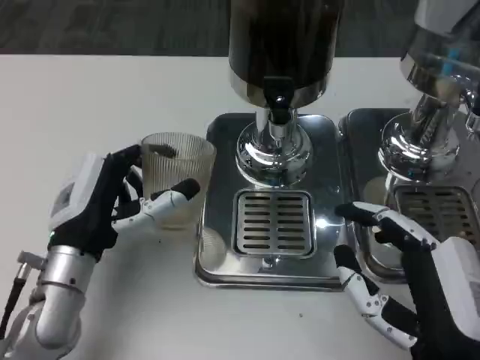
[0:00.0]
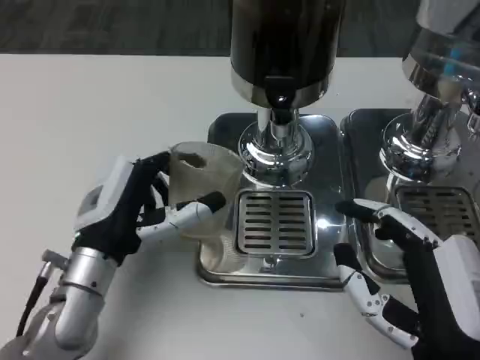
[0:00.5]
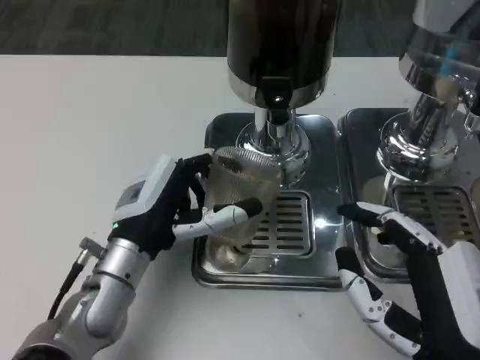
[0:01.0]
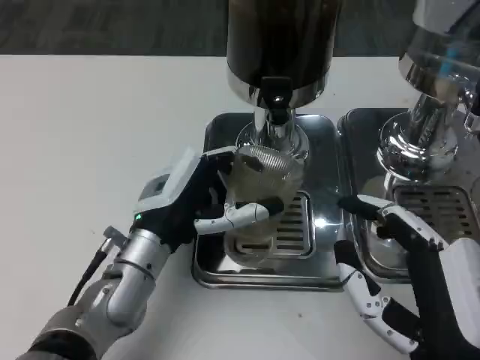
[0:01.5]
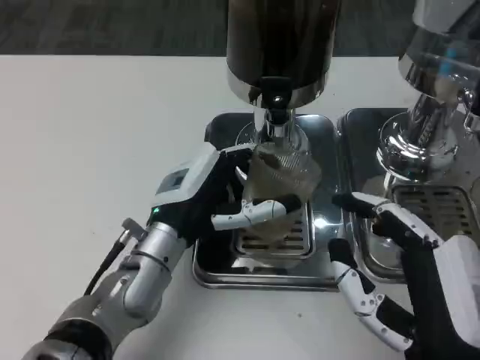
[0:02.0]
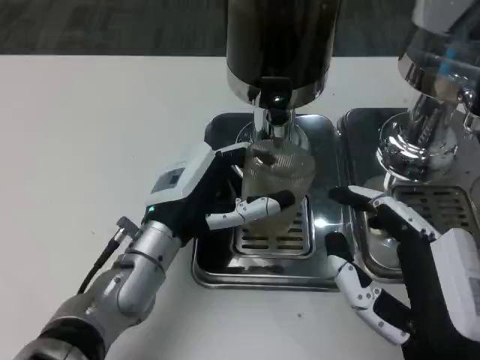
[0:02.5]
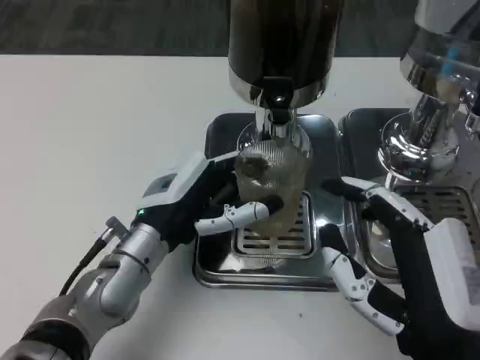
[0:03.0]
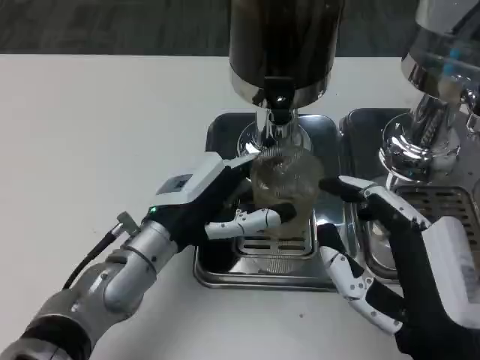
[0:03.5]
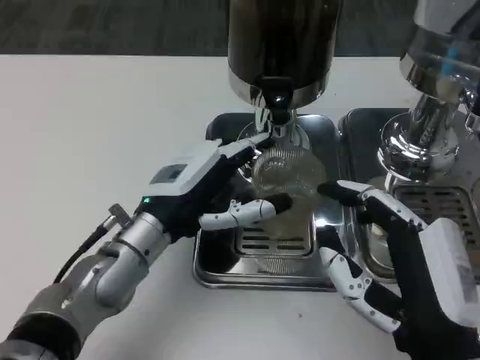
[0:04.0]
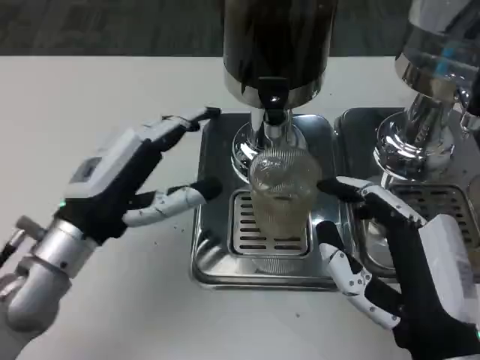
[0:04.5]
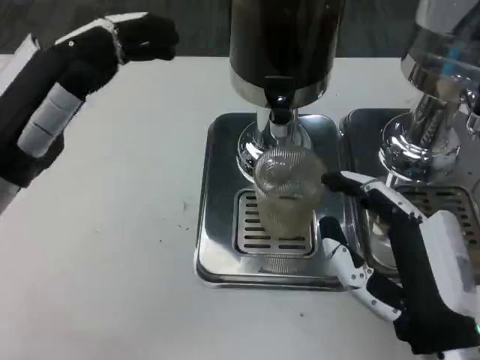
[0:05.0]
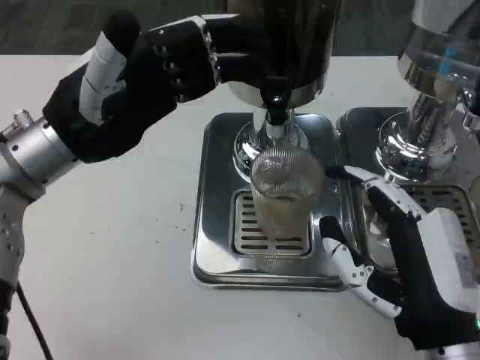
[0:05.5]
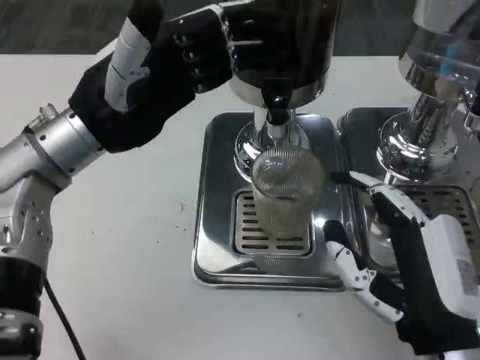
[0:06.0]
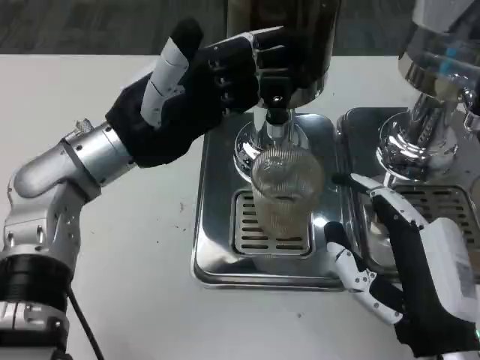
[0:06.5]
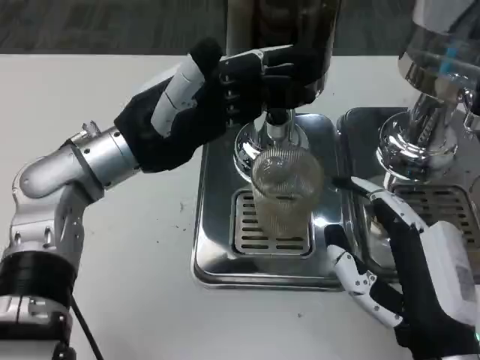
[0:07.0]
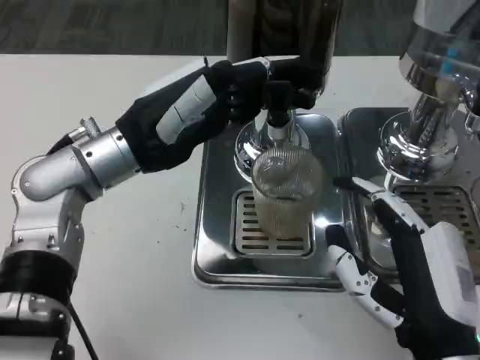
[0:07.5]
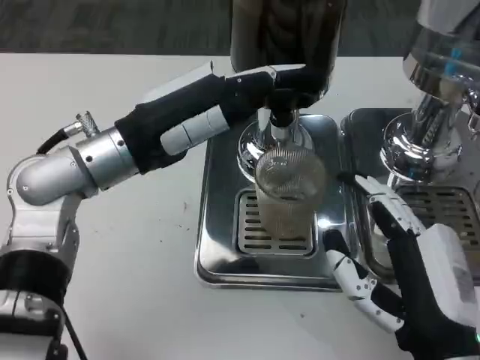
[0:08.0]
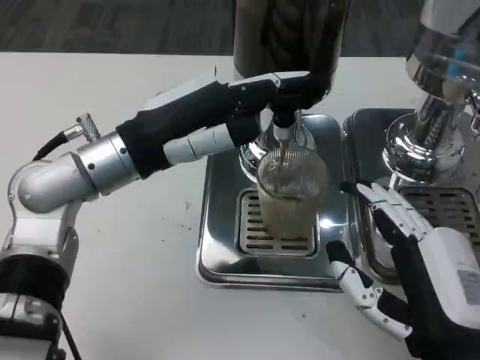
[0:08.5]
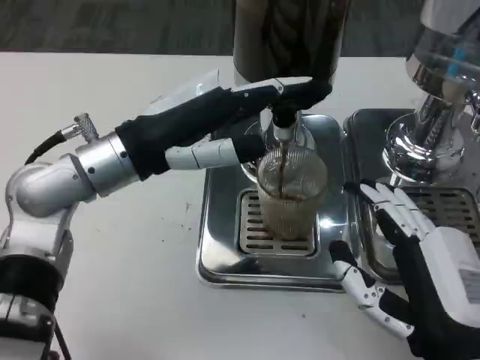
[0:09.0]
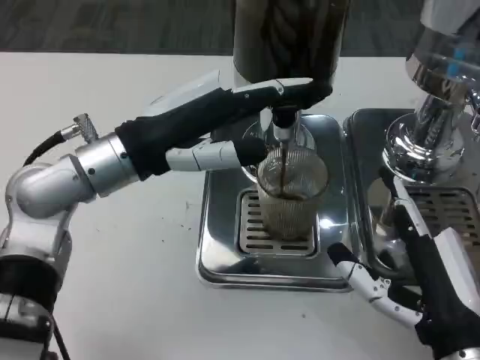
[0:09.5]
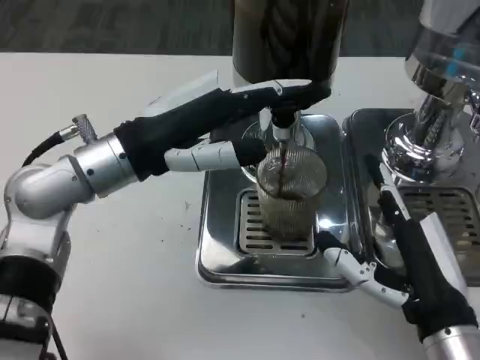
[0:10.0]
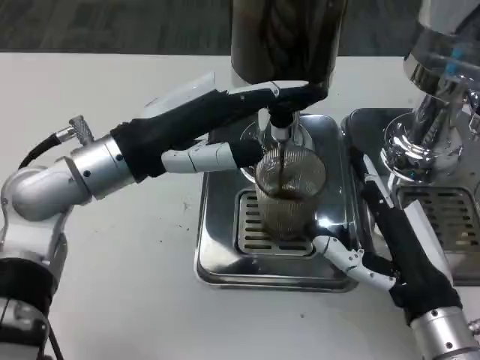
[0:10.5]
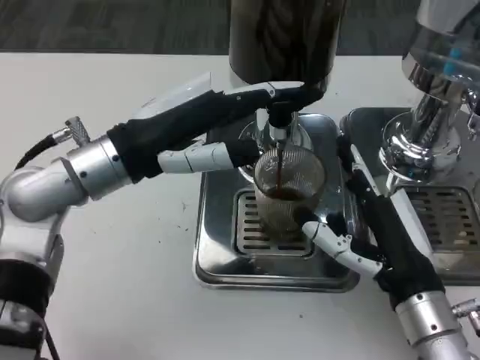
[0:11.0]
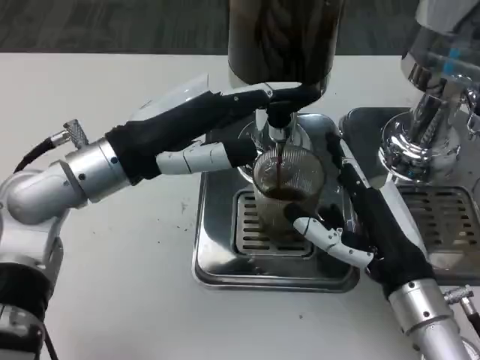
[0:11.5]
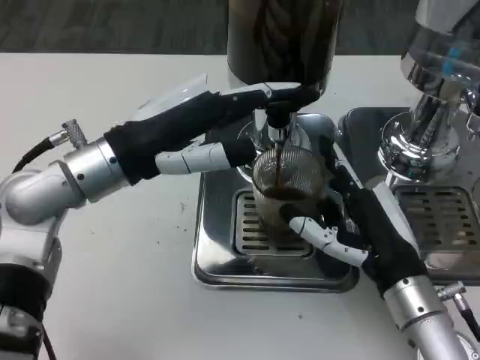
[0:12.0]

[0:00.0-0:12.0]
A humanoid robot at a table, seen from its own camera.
Task of the whole recording: Grasp the cup under the faucet to collect the drink, then remove the cup.
0:00.0 to 0:02.0: The left hand shifts about 10 cm to the right.
0:02.0 to 0:04.0: The hands make only small movements.
0:04.0 to 0:06.0: The left hand travels upward and to the left by some 10 cm.
0:10.0 to 0:12.0: The right hand travels forward by about 5 cm.

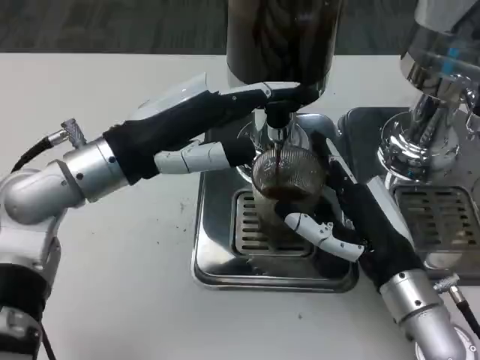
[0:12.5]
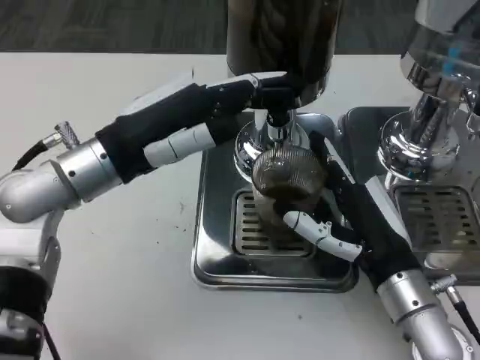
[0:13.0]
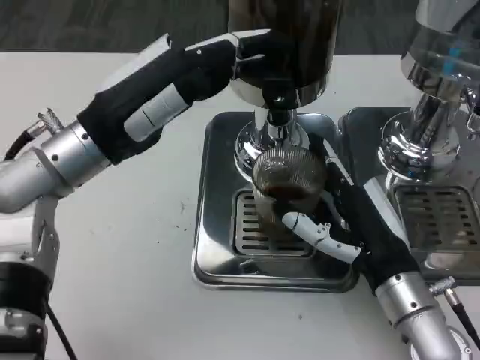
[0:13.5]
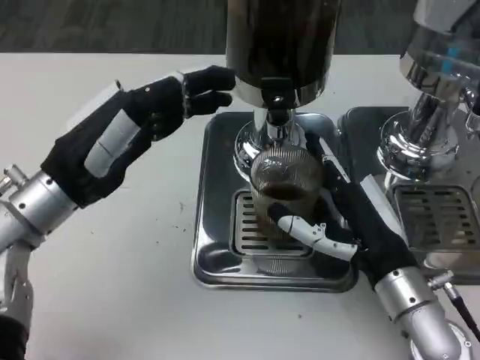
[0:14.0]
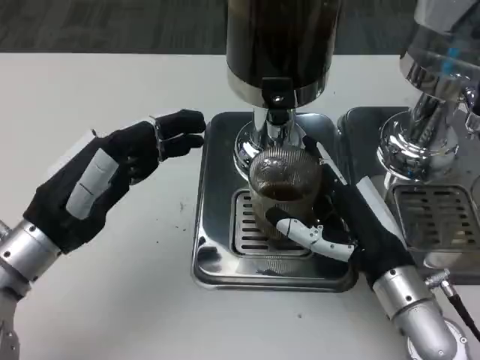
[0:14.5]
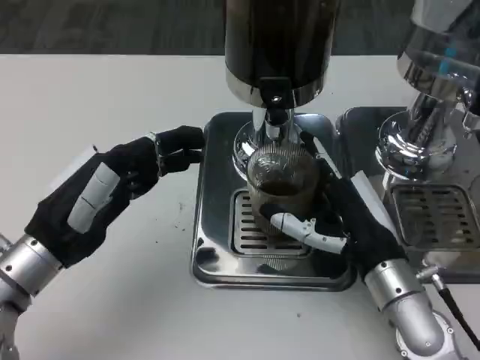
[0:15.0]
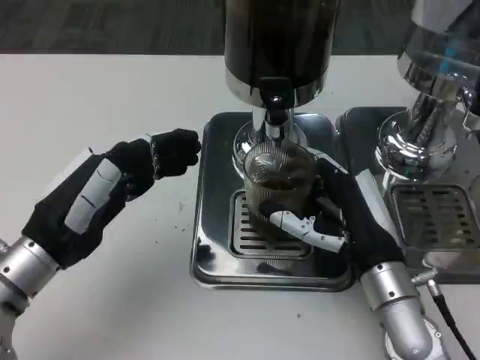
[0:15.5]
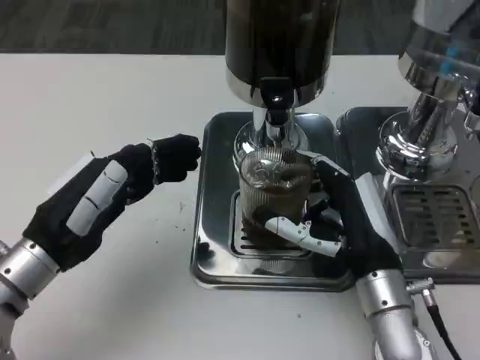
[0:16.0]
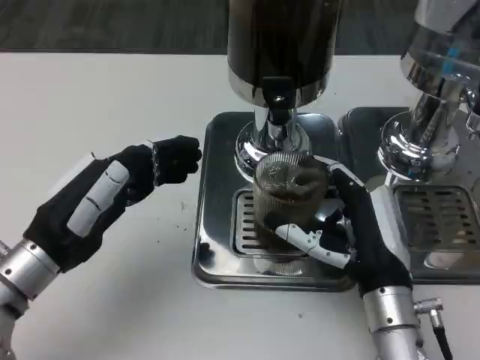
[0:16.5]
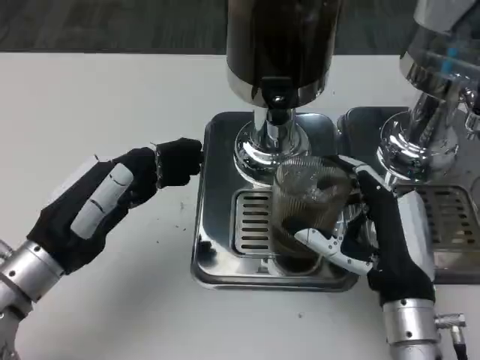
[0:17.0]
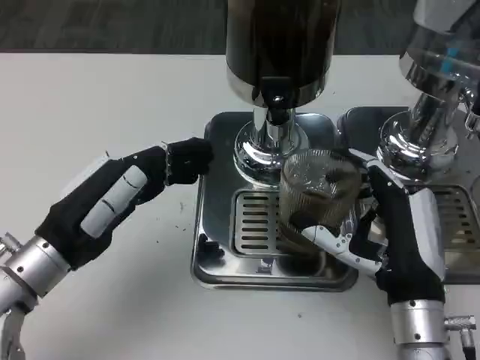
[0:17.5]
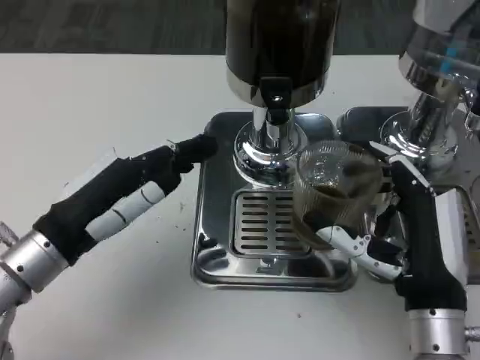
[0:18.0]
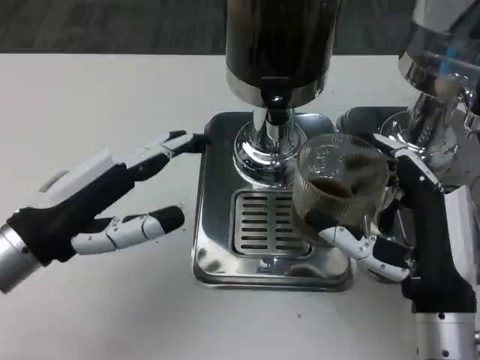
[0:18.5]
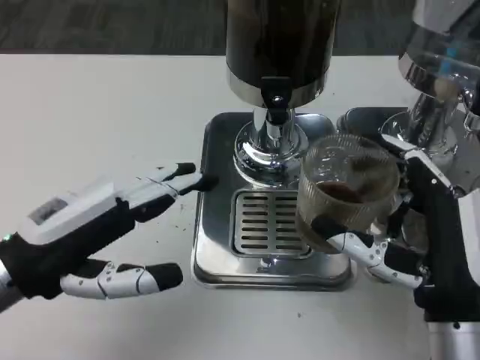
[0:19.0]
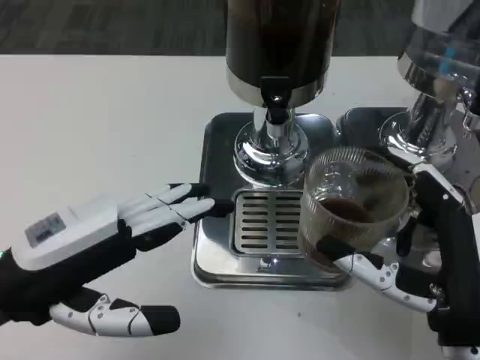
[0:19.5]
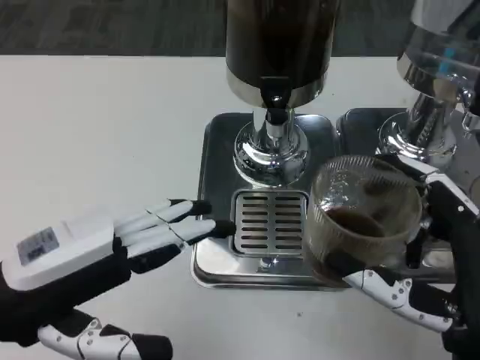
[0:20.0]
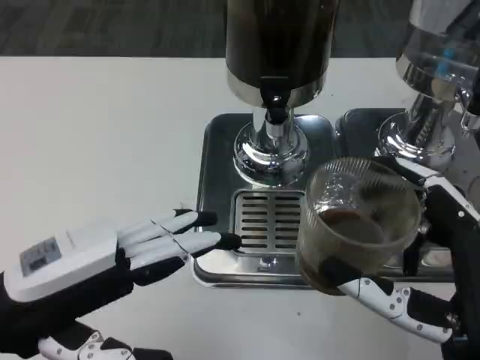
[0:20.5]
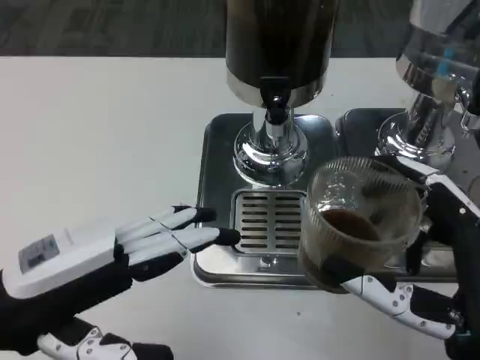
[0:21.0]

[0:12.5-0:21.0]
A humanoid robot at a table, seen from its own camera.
Task of the whole recording: Grasp the cup under the faucet to collect the drink, then remove the cup.
0:12.5 to 0:14.5: The left hand is displaced downward, backward and to the left by about 10 cm.
0:14.5 to 0:16.5: There are only small adjustments of the hands.
0:16.5 to 0:19.0: The right hand goes roughly 5 cm backward. Meanwhile the left hand ends up roughly 5 cm from where it was.
0:19.0 to 0:21.0: The right hand goes approximately 5 cm backward.

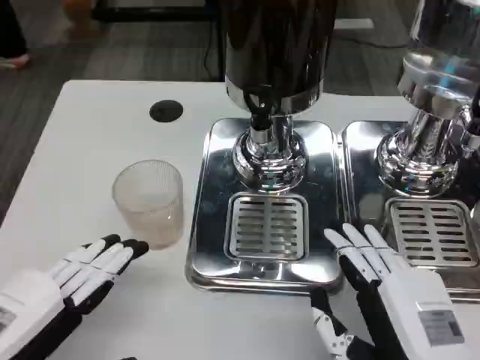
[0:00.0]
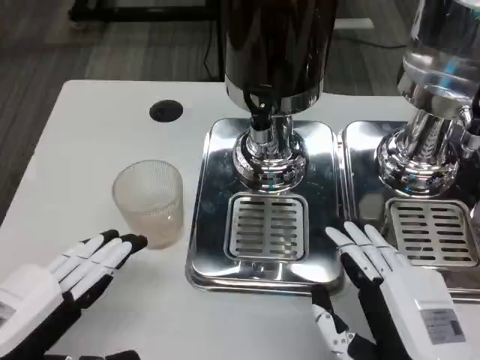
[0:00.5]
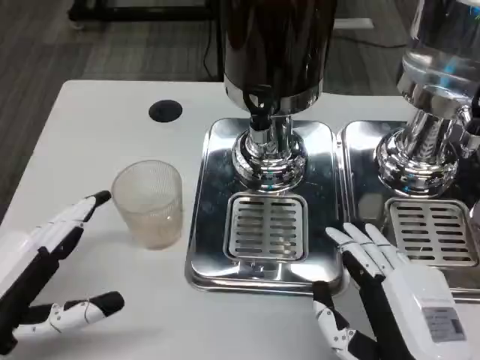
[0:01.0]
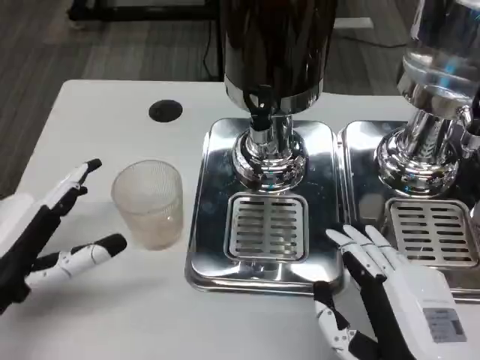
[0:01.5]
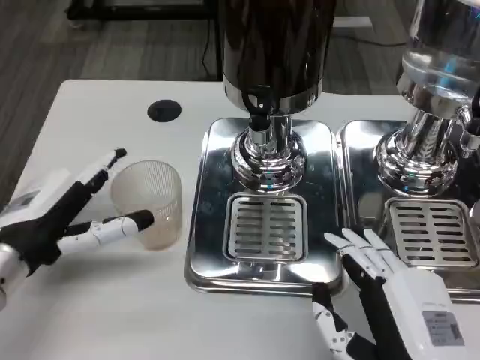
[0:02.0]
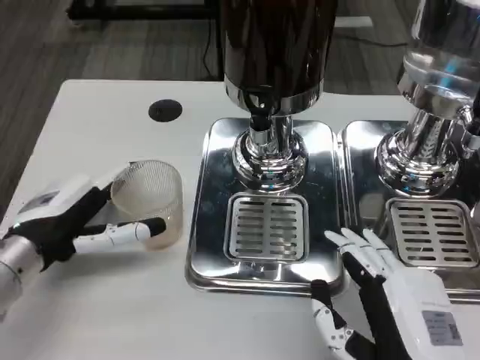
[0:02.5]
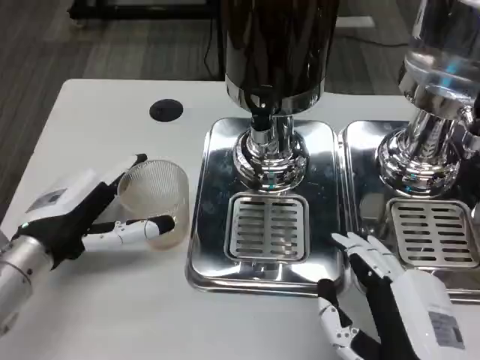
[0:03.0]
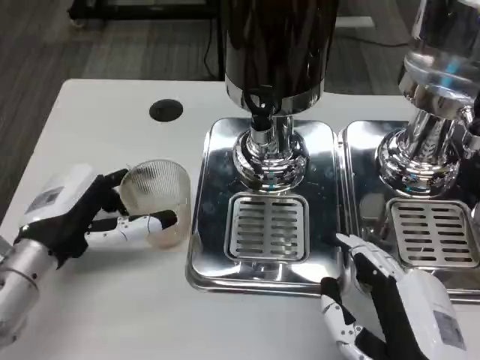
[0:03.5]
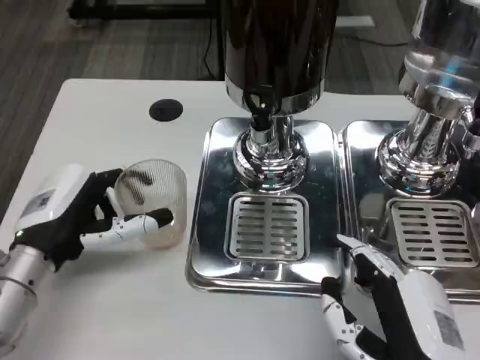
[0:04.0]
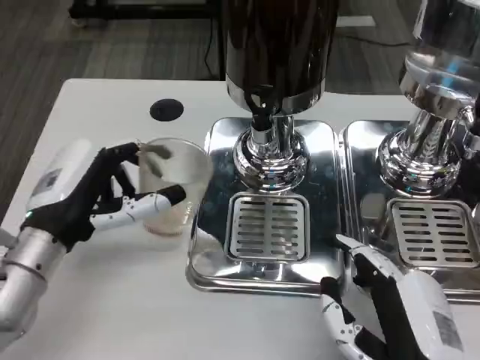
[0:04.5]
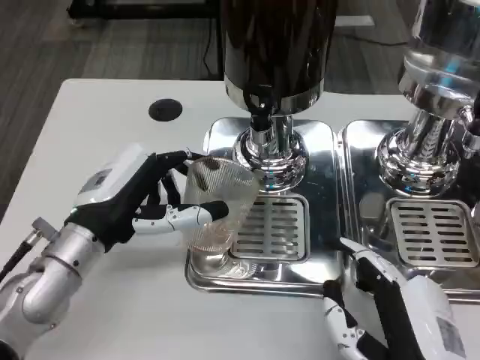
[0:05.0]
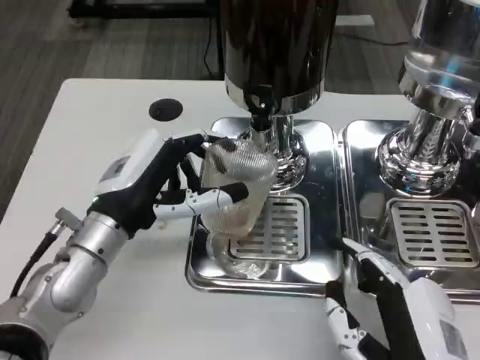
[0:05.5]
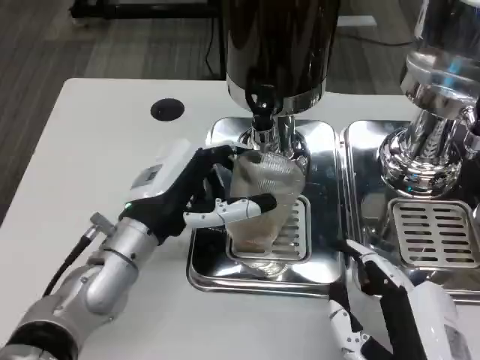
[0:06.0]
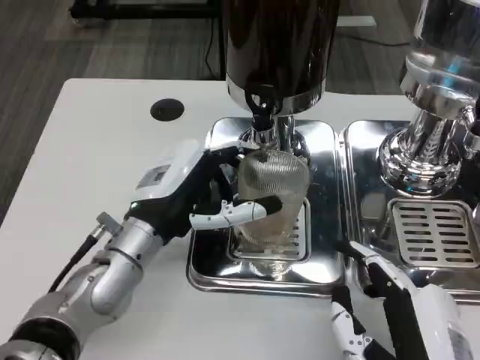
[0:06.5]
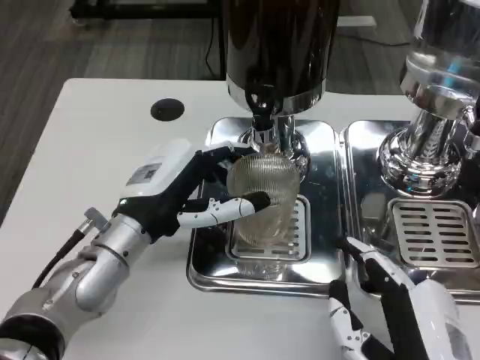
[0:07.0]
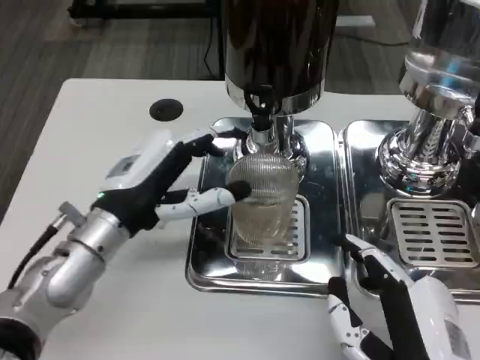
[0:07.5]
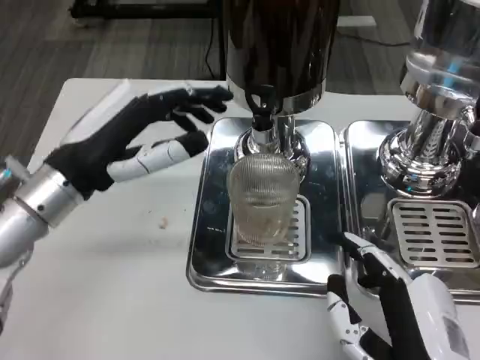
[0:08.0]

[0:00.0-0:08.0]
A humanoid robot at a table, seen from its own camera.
Task of the whole recording: Grasp the cup under the faucet to collect the drink, then remove the cup.
0:00.0 to 0:02.0: The left hand shifts some 10 cm forward.
0:02.0 to 0:04.0: The hands stay close to where they were, moving slightly.
0:04.0 to 0:06.0: The left hand heads to the right, covering approximately 10 cm.
0:06.0 to 0:08.0: The left hand travels upward and to the left by about 10 cm.
